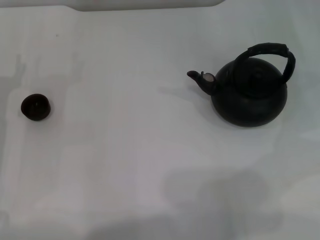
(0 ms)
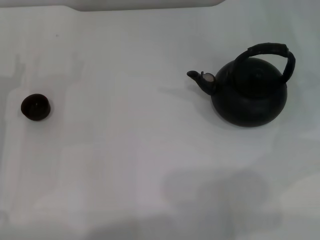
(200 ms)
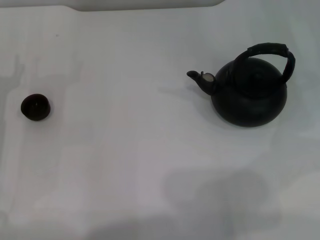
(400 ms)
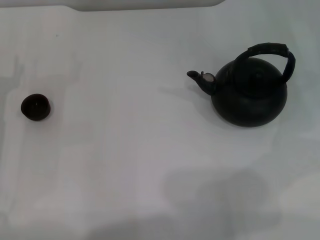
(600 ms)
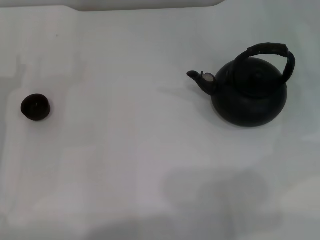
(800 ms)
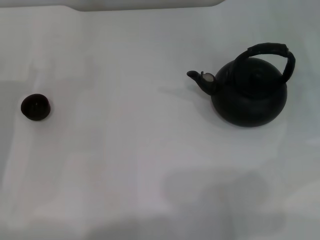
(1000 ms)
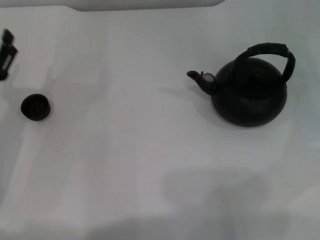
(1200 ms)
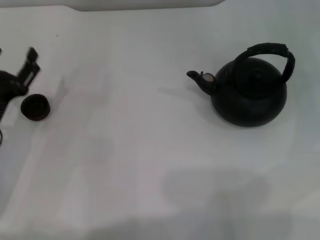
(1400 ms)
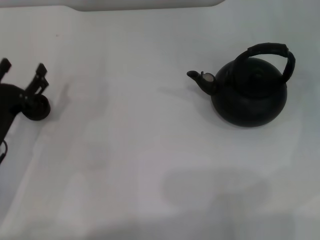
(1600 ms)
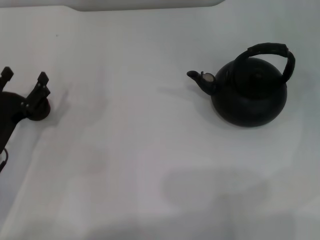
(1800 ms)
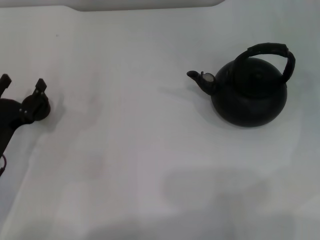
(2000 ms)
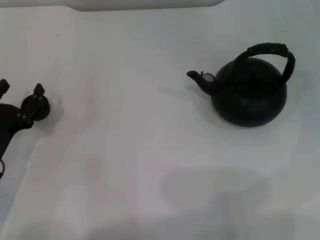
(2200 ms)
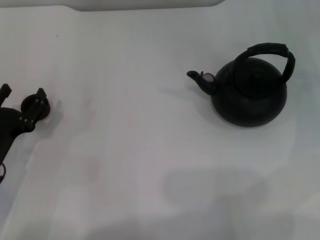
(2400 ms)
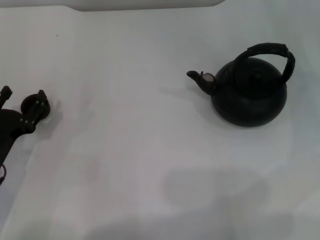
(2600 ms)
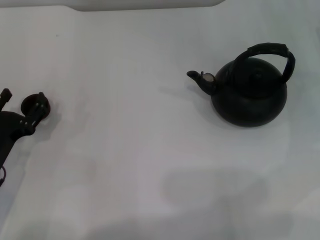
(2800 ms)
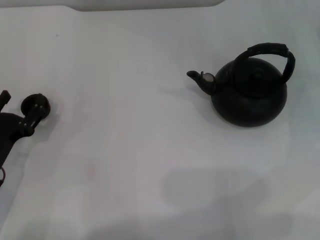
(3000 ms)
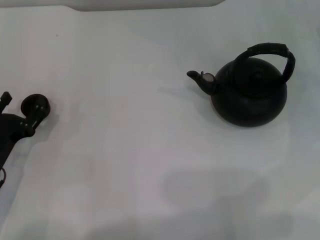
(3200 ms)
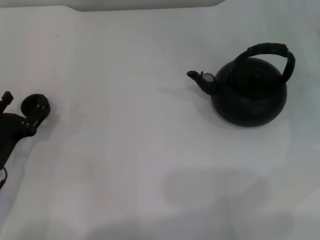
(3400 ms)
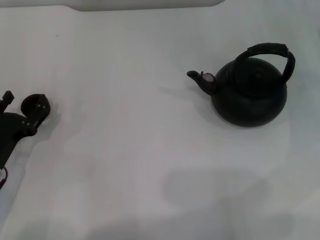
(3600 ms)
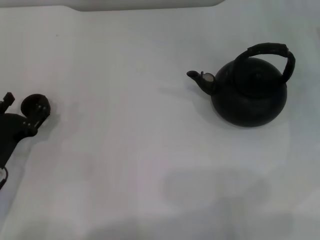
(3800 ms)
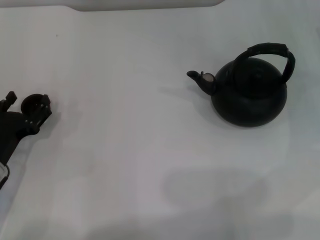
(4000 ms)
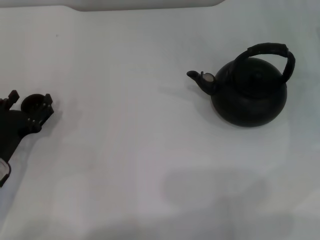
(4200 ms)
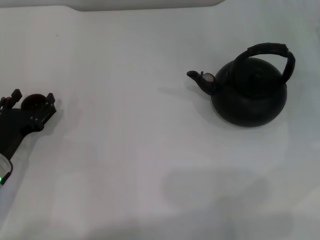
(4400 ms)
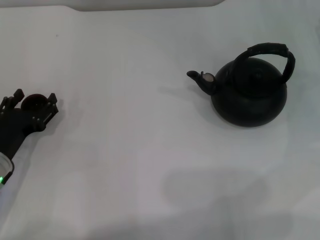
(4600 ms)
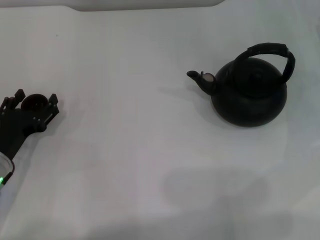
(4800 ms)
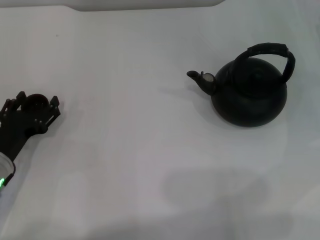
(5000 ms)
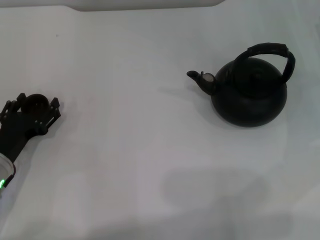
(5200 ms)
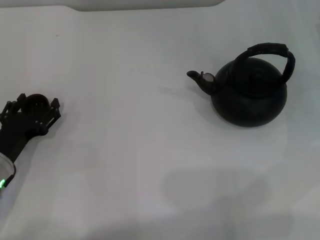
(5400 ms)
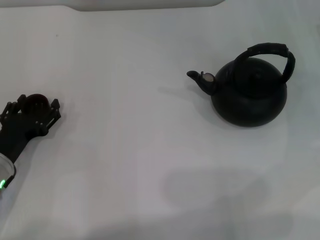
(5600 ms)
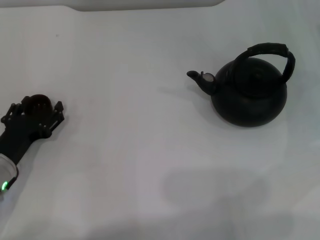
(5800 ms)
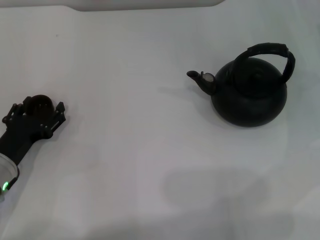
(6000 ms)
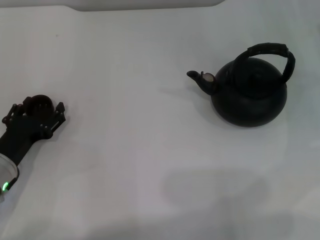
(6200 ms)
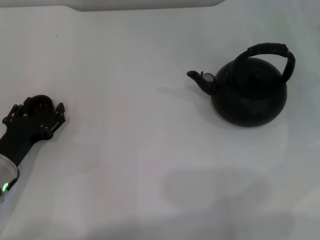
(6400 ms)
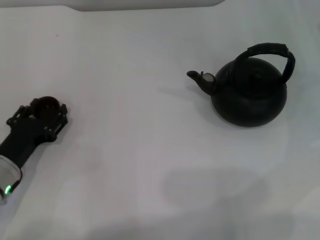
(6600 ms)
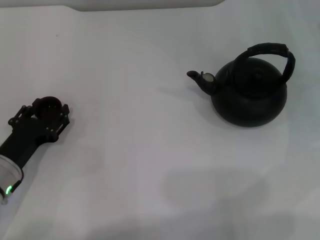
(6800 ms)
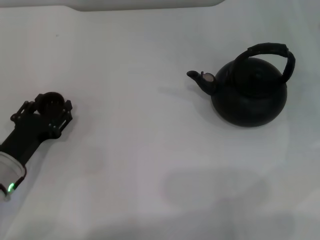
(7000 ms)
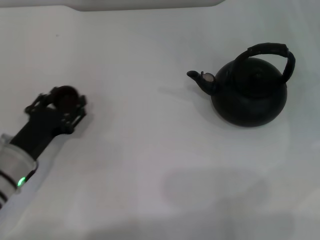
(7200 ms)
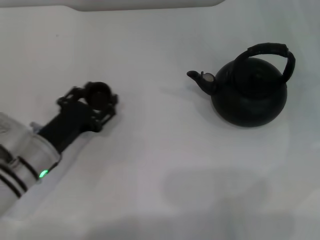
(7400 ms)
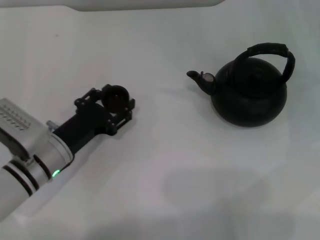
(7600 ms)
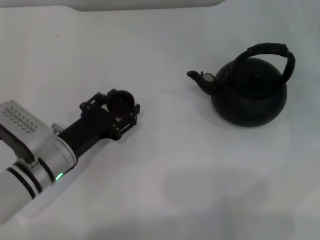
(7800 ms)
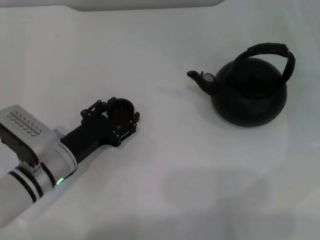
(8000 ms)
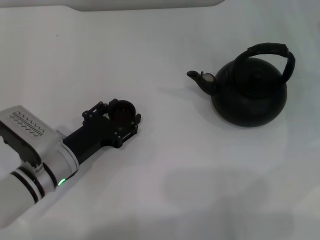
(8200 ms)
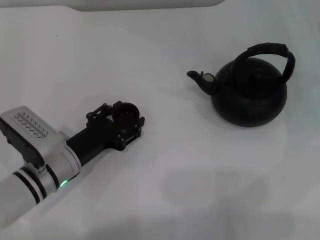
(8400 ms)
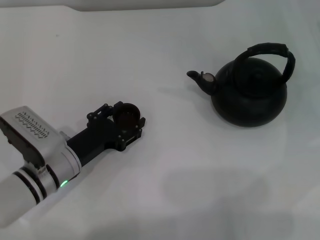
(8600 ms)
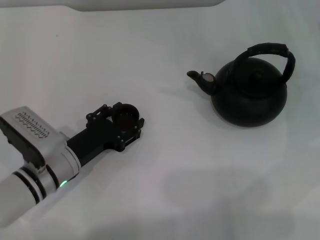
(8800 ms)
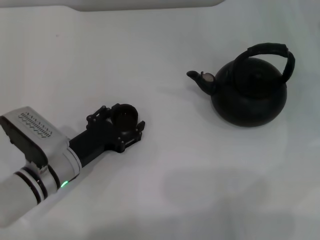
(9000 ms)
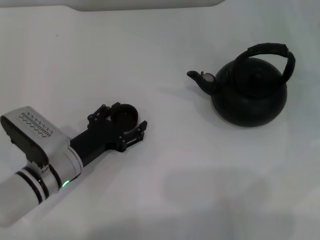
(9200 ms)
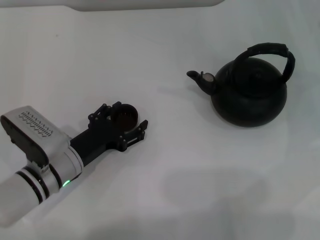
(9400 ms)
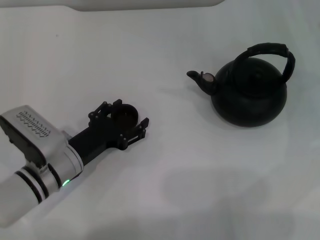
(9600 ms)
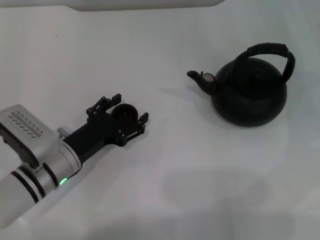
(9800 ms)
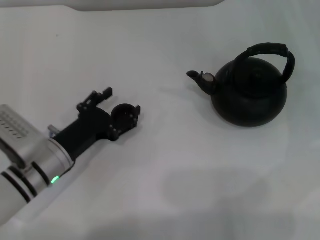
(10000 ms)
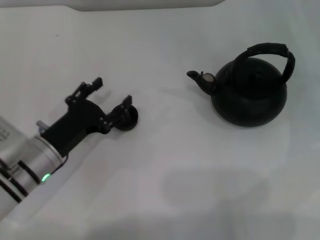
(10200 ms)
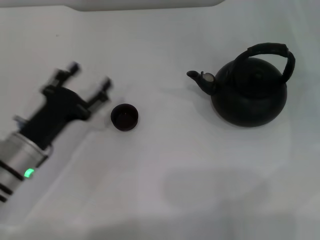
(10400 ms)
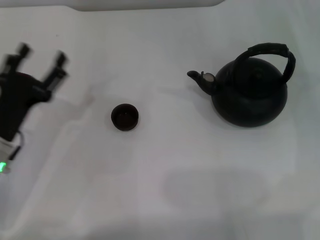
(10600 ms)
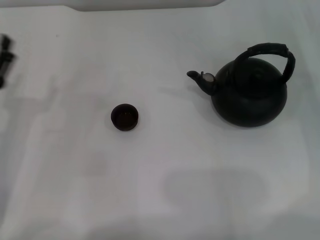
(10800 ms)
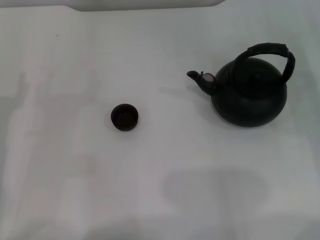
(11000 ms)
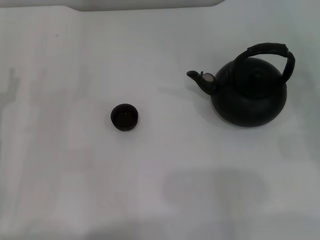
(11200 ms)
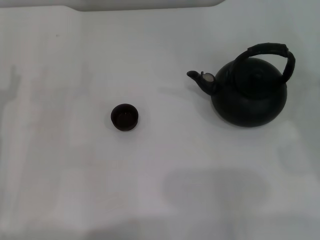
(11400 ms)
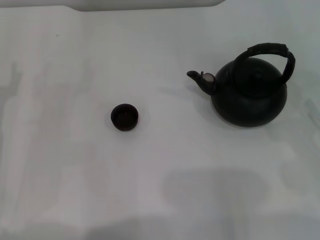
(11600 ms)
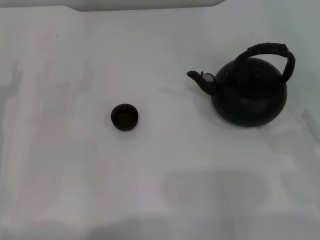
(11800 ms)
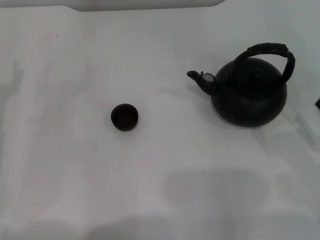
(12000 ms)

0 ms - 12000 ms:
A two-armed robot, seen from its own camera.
Task of the whole recording: Grasp the handle of the teapot with one hand and pour tea into the teacup.
Step, 0 ms - 7000 ms: Pick up the teacup with the left gripper.
Step, 7200 ms - 10200 ms: Place the teacup in the center of view with the left gripper.
0 ms - 1600 ms: The left gripper ends up approximately 5 cm from where it was.
1600 ms - 4400 ms: The grippers stay close to where they were, moving slightly.
4400 ms - 6000 ms: Neither gripper changes place.
6000 ms - 7600 ms: The left gripper heads to the right, covering roughly 5 cm, and closes.
7600 ms - 9000 ms: There are only small adjustments of the grippers.
9000 ms - 10400 ms: The left gripper changes place by about 5 cm, and opens its fingers.
10400 ms - 12000 ms: The left gripper is displaced to the left by some 10 cm.

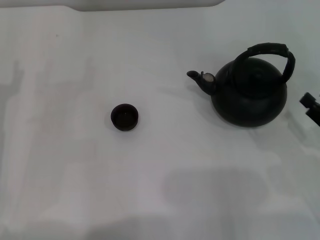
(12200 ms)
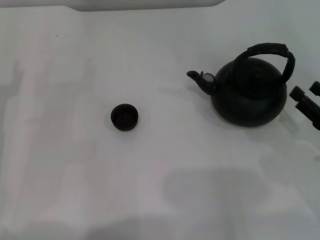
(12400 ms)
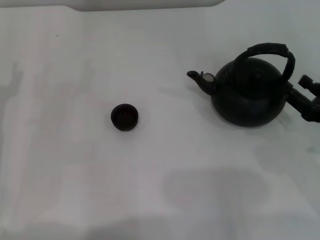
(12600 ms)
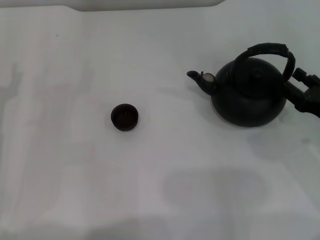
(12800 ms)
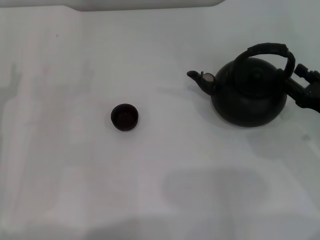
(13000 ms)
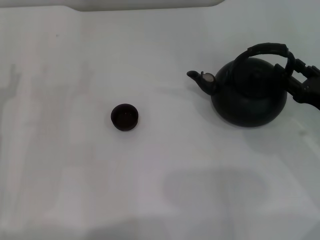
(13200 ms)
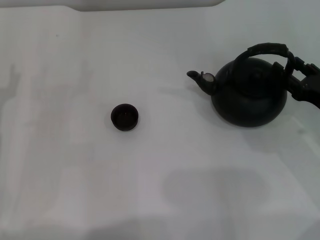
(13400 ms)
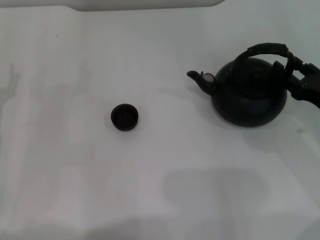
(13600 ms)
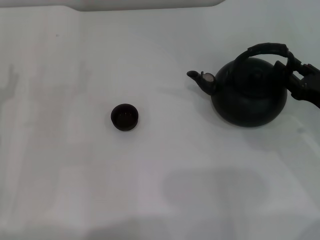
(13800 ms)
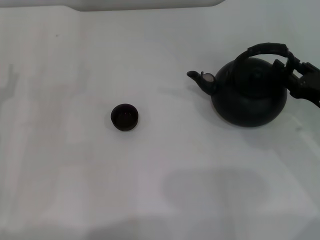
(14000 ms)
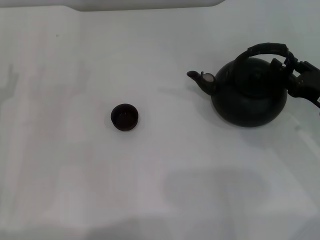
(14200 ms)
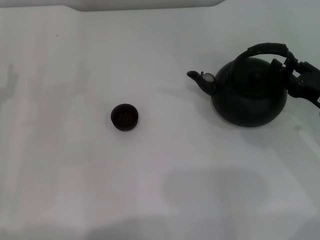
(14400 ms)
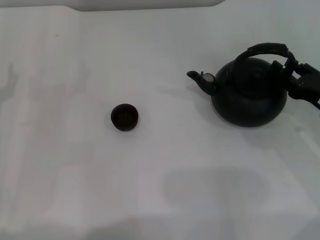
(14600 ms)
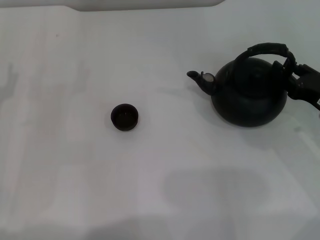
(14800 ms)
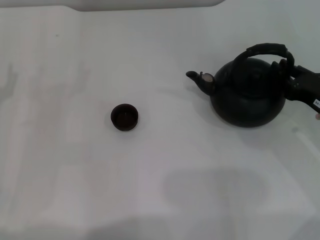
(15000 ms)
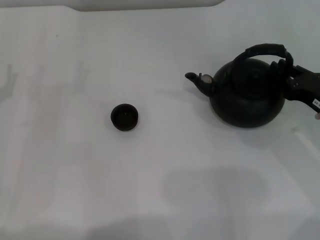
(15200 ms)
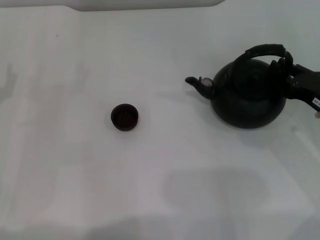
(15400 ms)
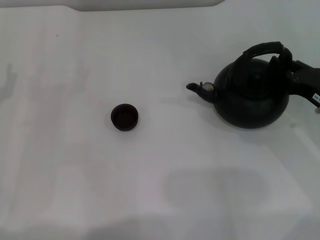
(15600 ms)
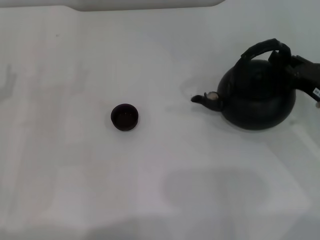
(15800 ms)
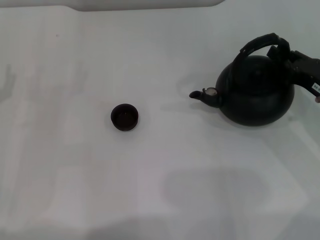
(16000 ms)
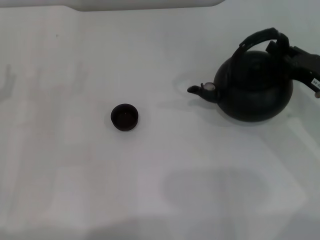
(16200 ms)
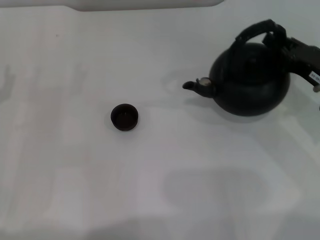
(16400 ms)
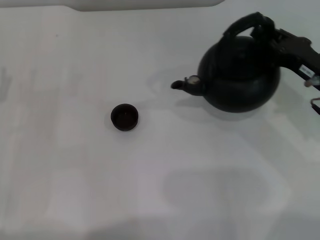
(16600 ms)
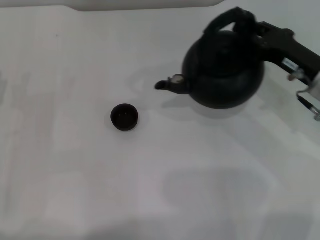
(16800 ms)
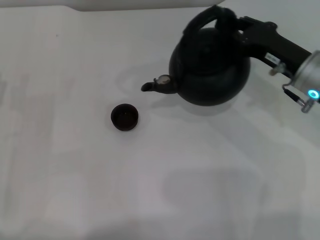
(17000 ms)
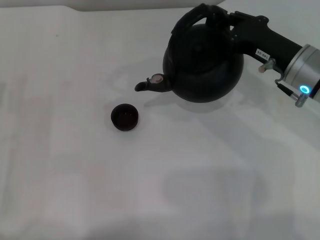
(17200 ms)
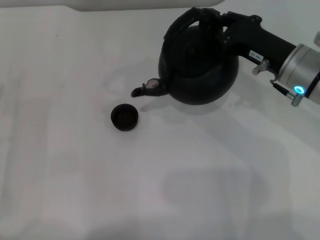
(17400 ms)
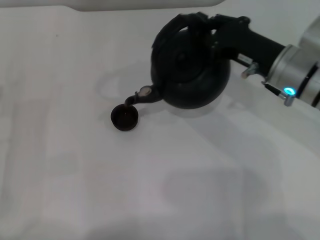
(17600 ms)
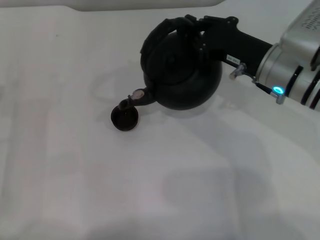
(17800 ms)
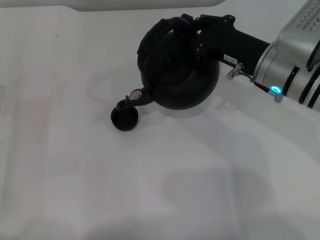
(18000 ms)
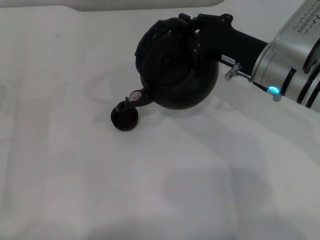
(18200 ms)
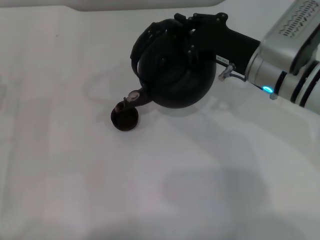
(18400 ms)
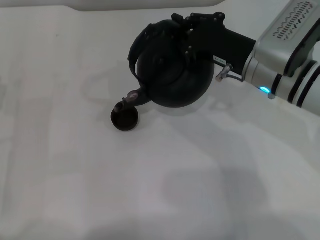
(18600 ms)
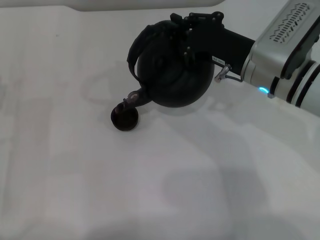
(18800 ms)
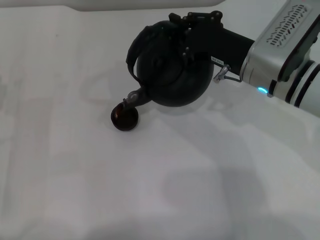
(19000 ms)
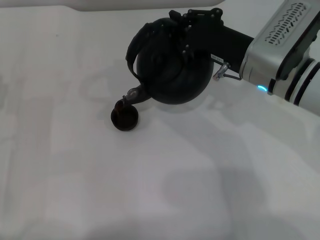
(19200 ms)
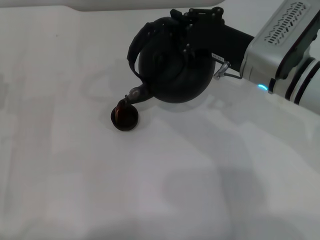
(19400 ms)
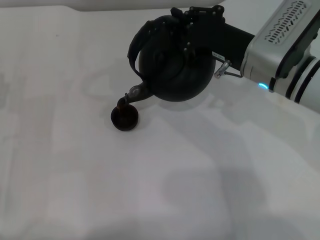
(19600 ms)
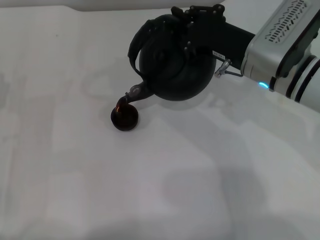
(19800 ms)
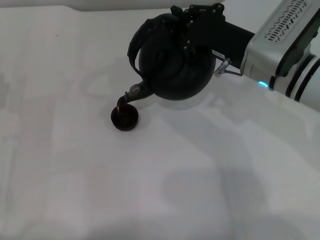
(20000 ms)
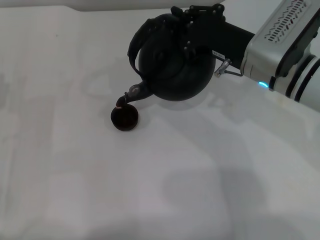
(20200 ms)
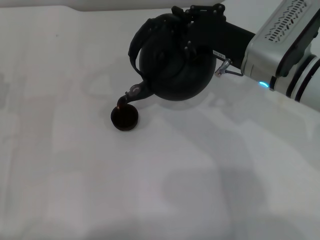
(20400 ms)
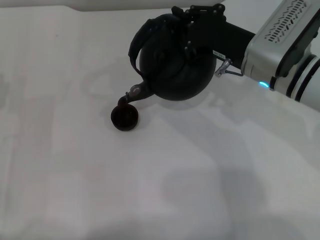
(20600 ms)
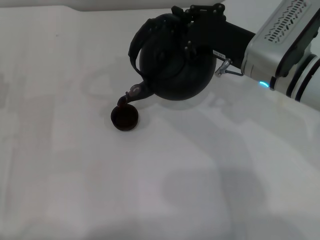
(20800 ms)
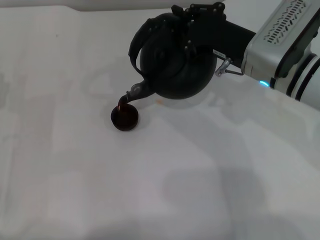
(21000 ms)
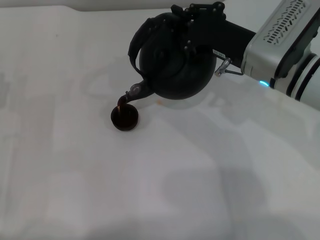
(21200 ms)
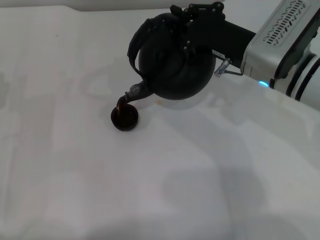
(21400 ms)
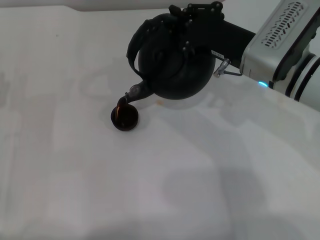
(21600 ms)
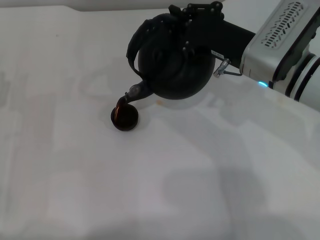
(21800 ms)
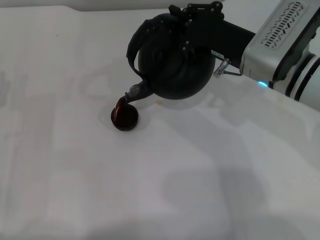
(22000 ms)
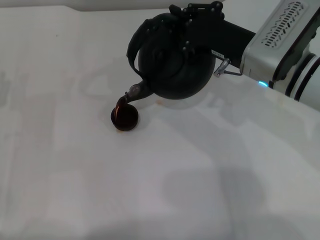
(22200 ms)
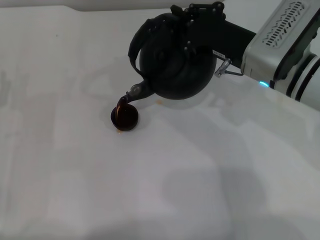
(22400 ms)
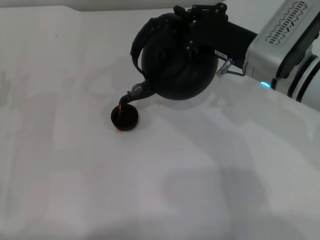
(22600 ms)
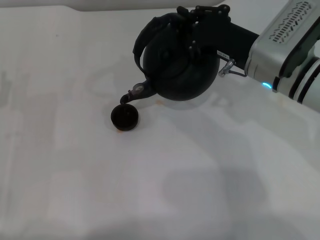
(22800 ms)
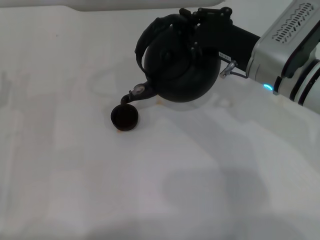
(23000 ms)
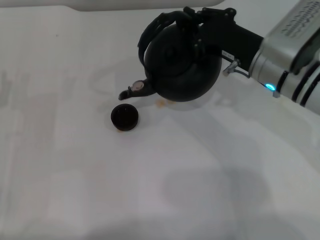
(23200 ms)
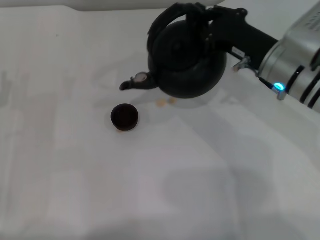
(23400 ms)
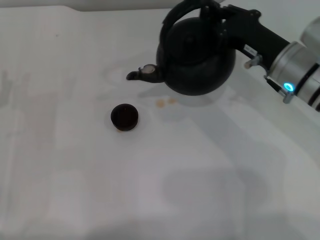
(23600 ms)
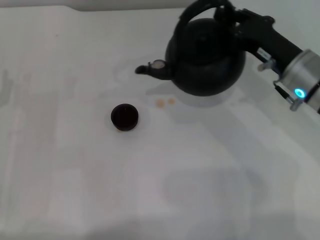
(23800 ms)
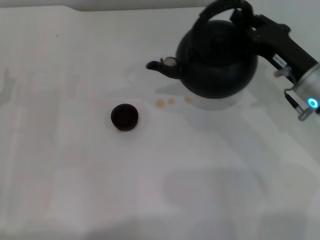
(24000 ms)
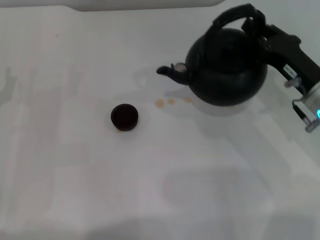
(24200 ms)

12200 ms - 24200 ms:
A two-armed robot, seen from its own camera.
Task of the whole recording: Grasp the handle of the teapot with one hand and pour tea into the teacup.
Step, 12200 ms - 16600 ms: Pick up the teapot with the right gripper.
Step, 16800 ms - 23400 ms: Pour tea into the teacup with the right gripper.
12200 ms - 13800 ms: The right gripper travels forward by approximately 10 cm.
13800 ms - 15200 ms: The right gripper closes.
15200 ms - 16600 ms: The right gripper changes place by approximately 5 cm.
16600 ms - 18200 ms: The right gripper travels to the left by approximately 10 cm.
18200 ms - 19800 ms: The grippers move only a little.
19800 ms - 22600 ms: Both grippers stay about where they are.
22600 ms - 24200 ms: The right gripper heads to the right and downward, covering some 10 cm.
